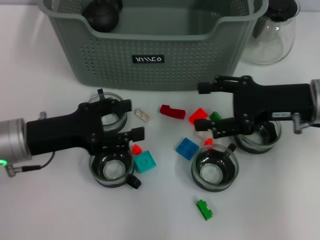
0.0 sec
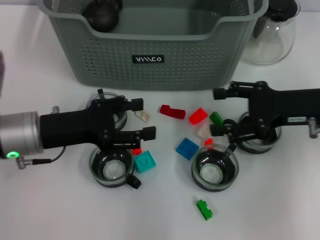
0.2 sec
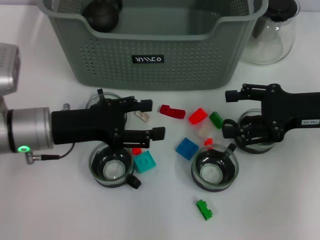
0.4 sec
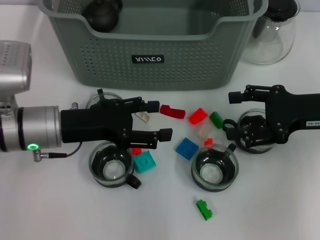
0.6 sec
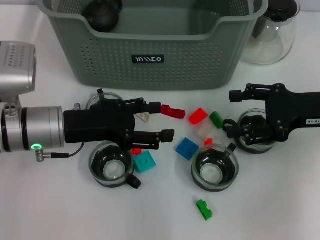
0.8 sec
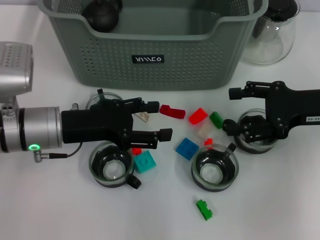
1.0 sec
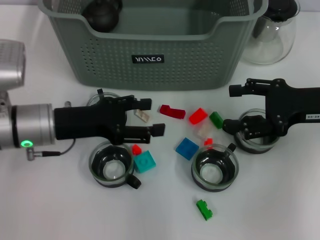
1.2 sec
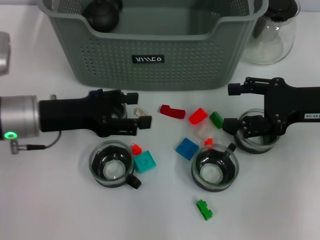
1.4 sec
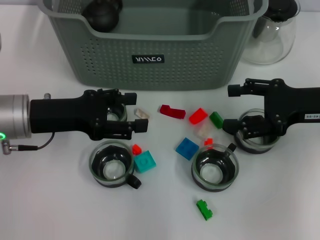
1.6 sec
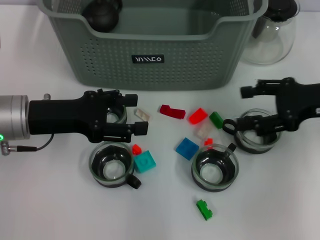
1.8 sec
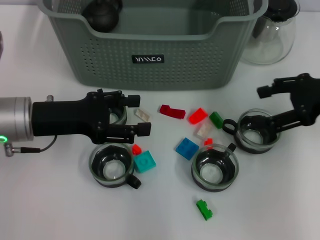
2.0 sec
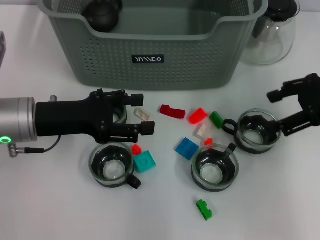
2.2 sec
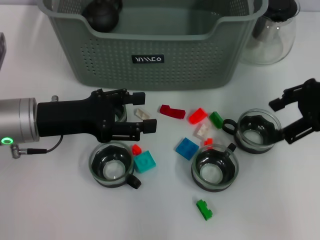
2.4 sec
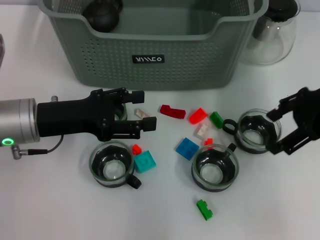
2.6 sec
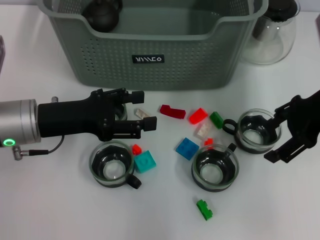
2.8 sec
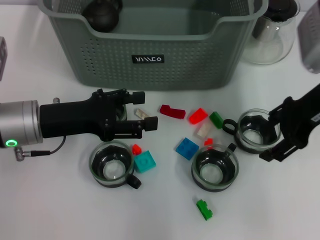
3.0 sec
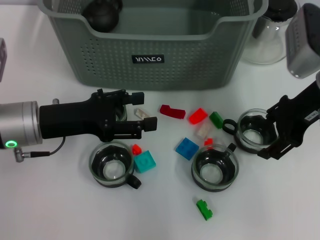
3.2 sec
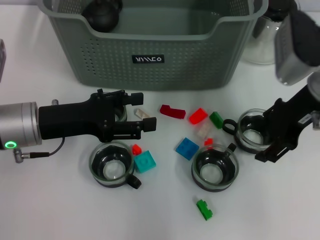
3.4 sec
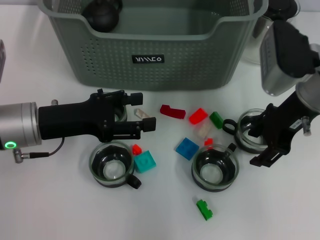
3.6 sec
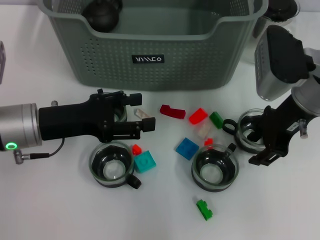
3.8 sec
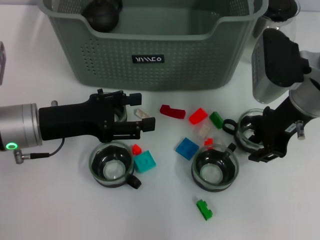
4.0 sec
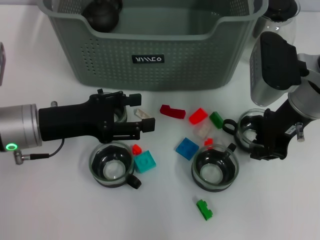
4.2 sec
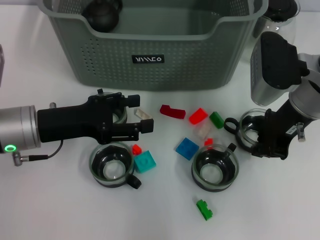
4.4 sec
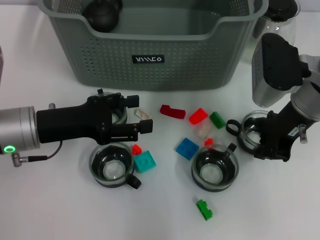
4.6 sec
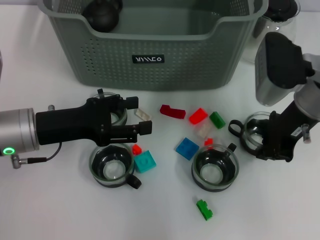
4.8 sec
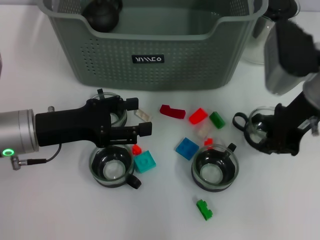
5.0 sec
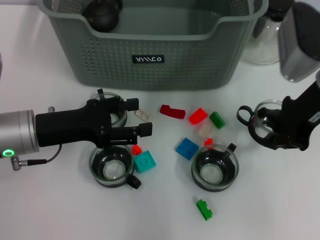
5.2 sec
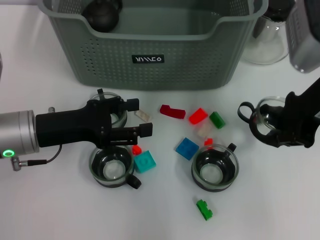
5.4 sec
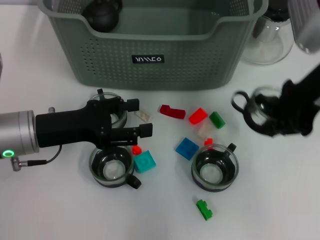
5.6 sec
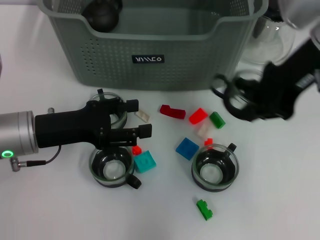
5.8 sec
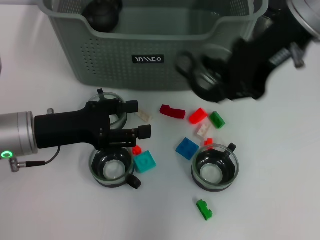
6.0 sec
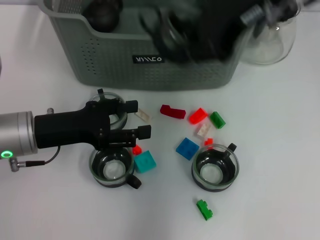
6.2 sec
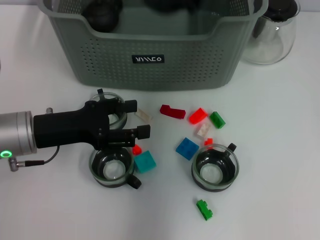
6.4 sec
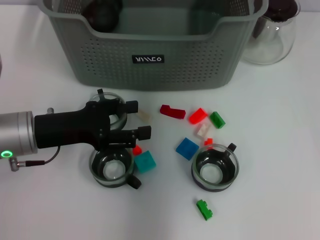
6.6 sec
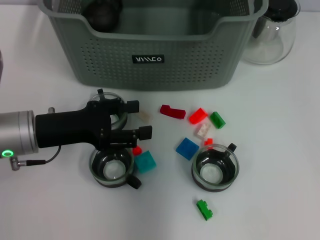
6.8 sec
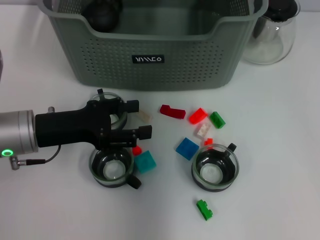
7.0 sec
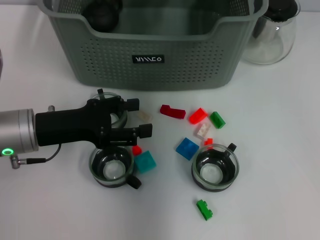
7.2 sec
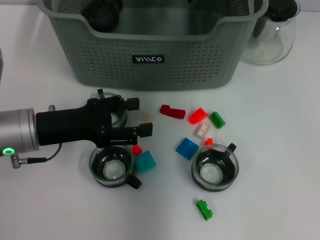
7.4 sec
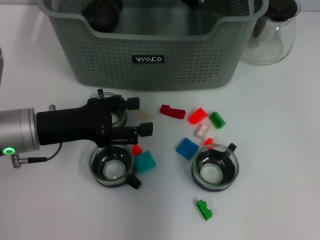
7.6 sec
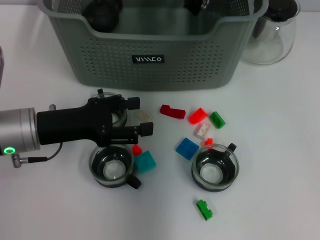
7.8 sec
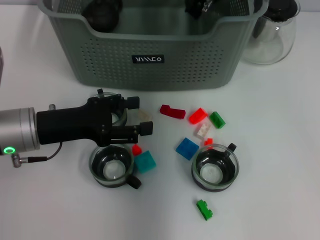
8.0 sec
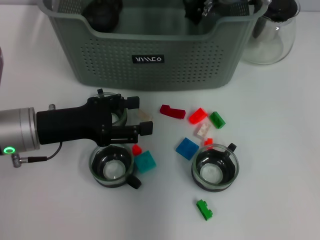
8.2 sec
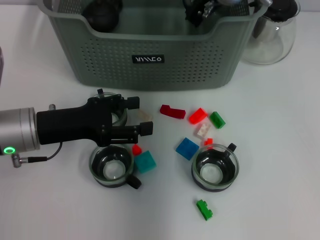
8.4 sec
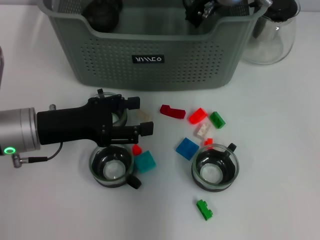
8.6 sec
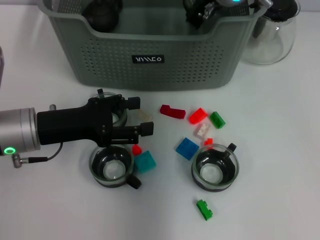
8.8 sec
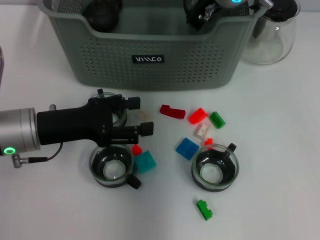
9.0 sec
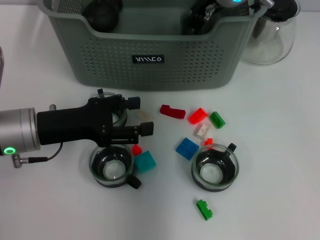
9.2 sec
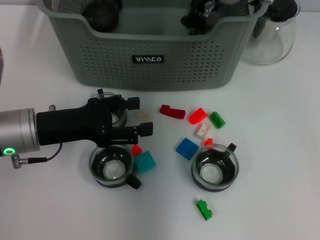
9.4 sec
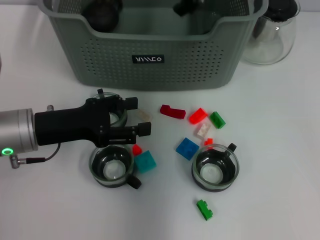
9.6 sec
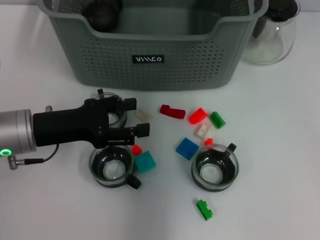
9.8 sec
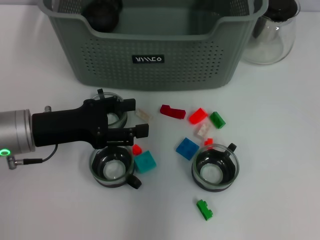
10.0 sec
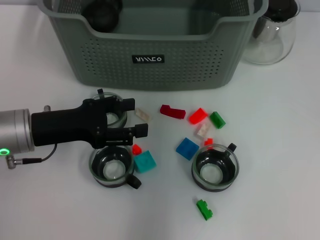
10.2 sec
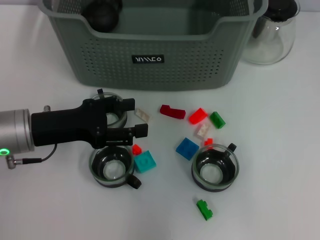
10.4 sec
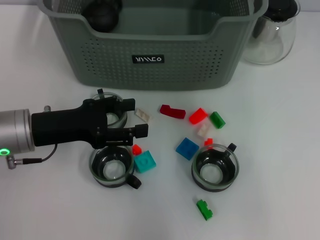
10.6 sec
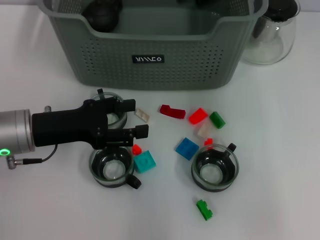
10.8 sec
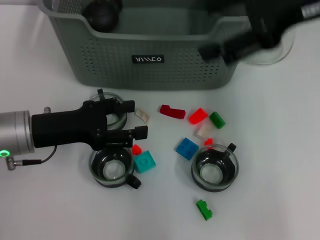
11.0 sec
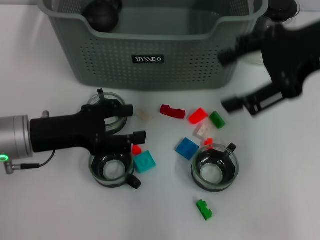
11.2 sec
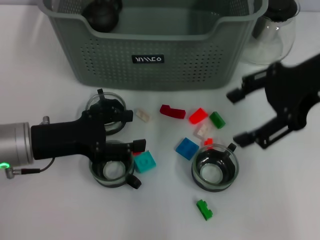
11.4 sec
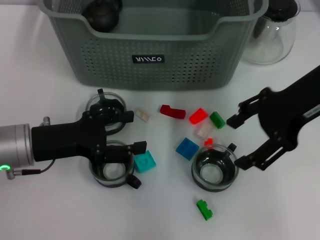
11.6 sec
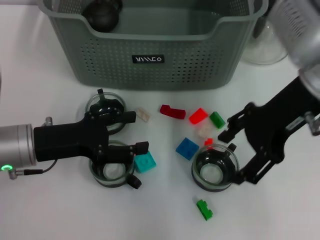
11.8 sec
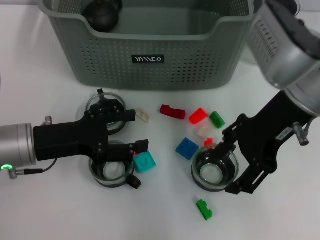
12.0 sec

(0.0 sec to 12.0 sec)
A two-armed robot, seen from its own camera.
Task of the whole recording: pick up the teacup on the table and place it into the storage bin, pick up the block on the table and place it into the storage bin.
Step, 0.0 sec - 4.4 sec: Grasp the cup with right gripper.
Step, 4.6 sec - 9.2 sec: Place the cup in the storage box with right gripper.
0.0 sec - 1.6 sec: The grippers move only a little.
1.6 sec - 3.0 sec: The right gripper changes place by approximately 5 cm.
3.0 sec - 4.4 sec: The right gripper moves about 5 cm, and closes its fingers.
4.4 sec - 6.0 sec: The right gripper shifts about 15 cm upward.
6.0 sec - 7.6 sec: The right gripper shifts some 15 cm forward, downward and to the left.
9.0 sec - 10.4 sec: The right gripper goes approximately 15 cm upward and backward, and opens its fingers.
10.4 sec - 12.0 sec: The right gripper is displaced downward and backward by approximately 15 cm.

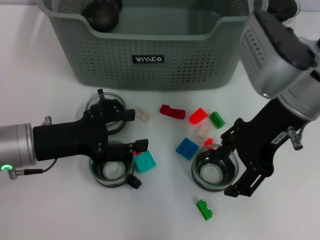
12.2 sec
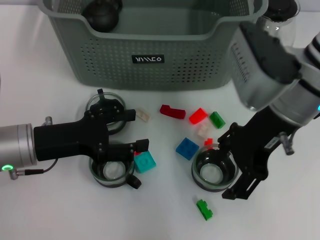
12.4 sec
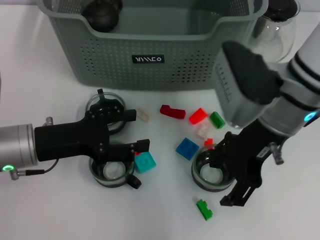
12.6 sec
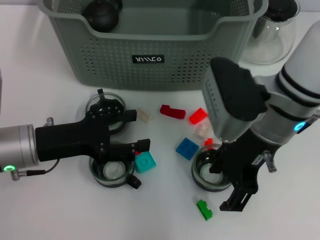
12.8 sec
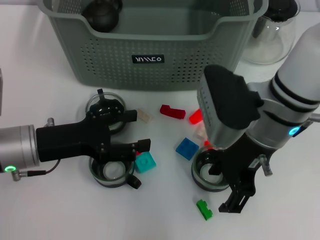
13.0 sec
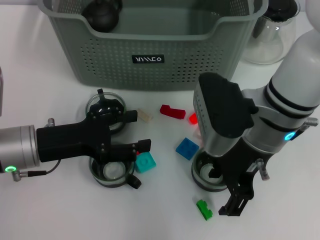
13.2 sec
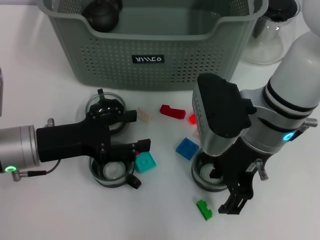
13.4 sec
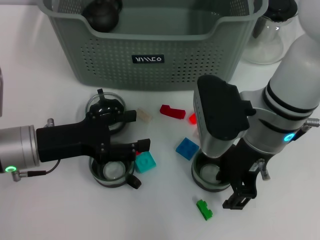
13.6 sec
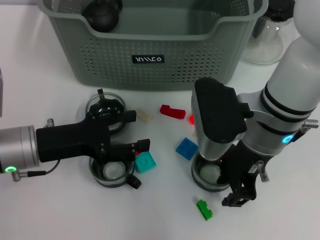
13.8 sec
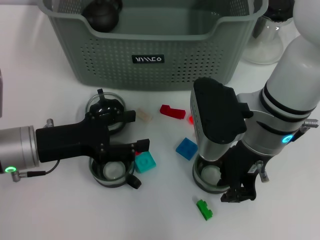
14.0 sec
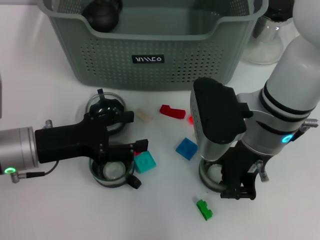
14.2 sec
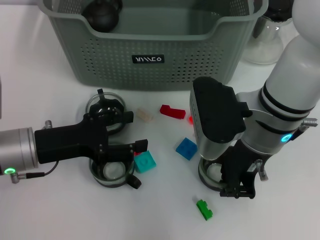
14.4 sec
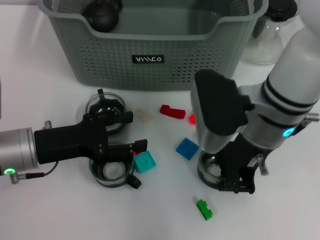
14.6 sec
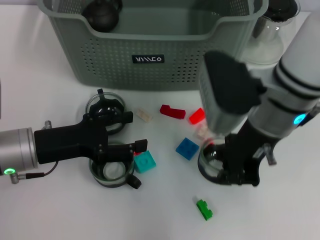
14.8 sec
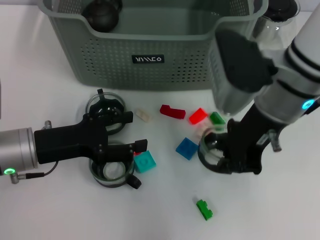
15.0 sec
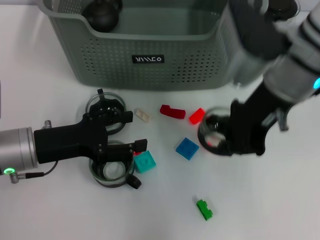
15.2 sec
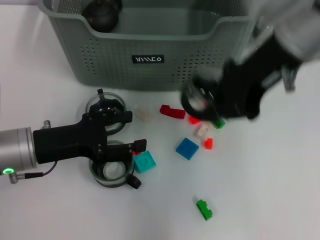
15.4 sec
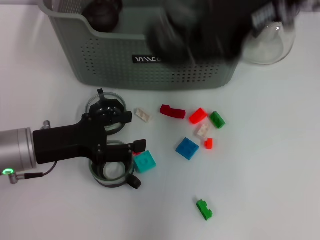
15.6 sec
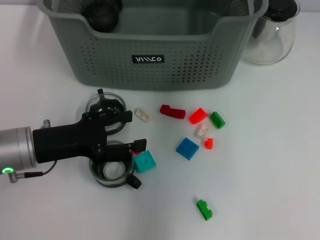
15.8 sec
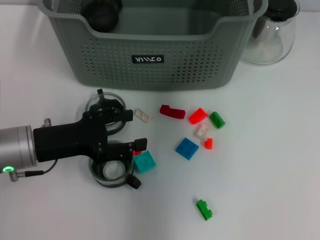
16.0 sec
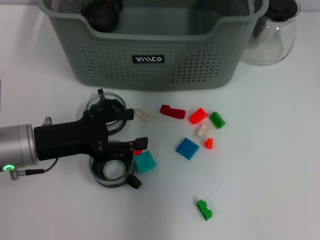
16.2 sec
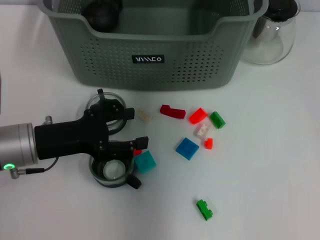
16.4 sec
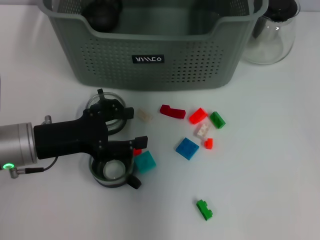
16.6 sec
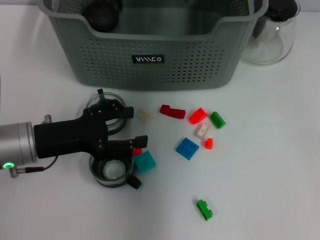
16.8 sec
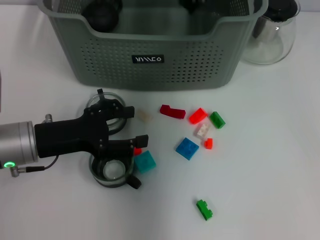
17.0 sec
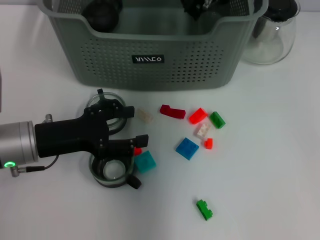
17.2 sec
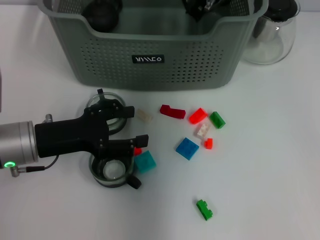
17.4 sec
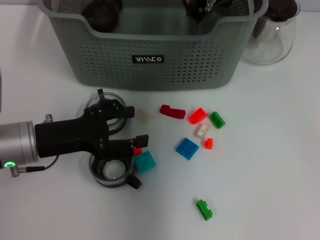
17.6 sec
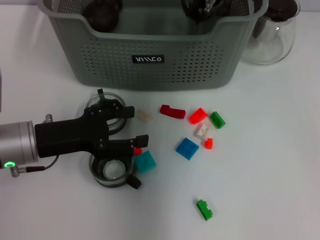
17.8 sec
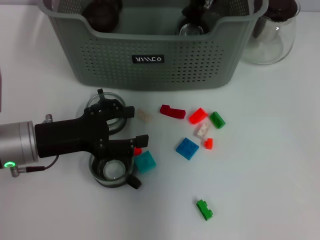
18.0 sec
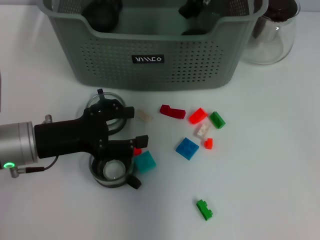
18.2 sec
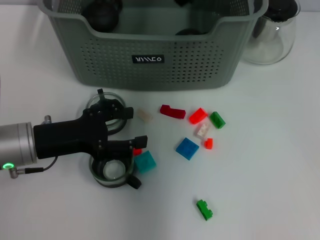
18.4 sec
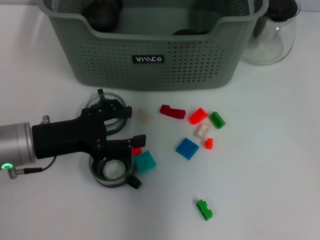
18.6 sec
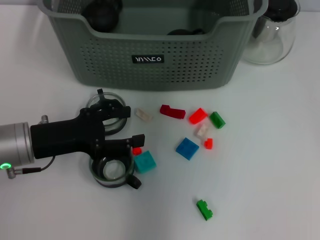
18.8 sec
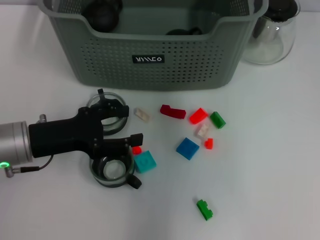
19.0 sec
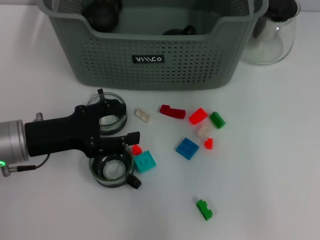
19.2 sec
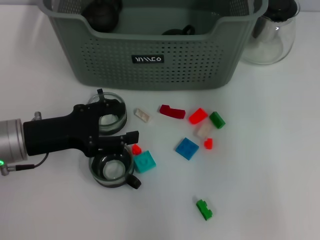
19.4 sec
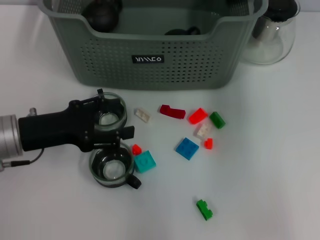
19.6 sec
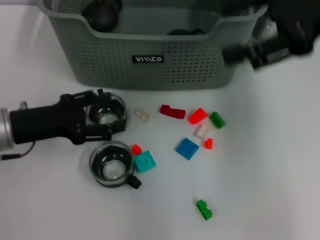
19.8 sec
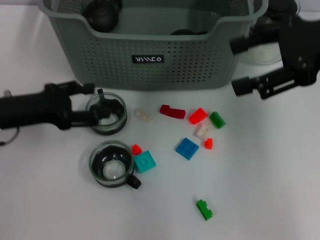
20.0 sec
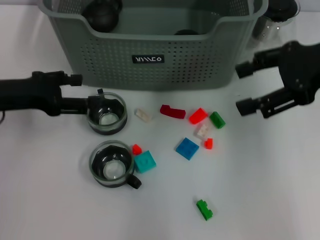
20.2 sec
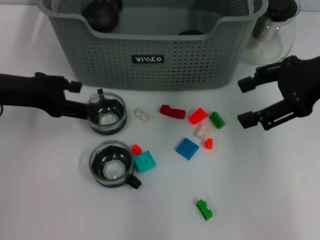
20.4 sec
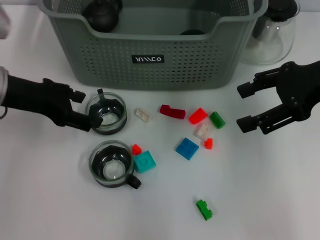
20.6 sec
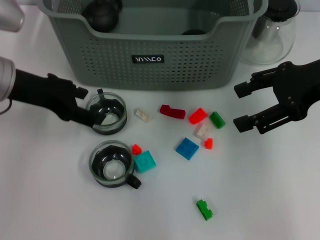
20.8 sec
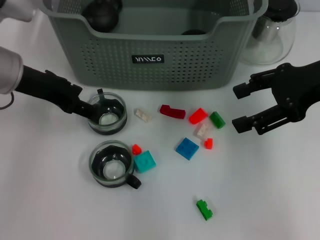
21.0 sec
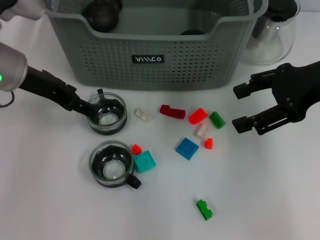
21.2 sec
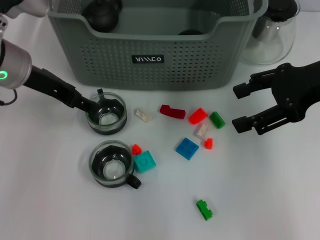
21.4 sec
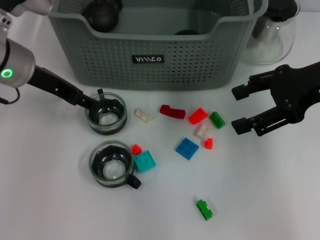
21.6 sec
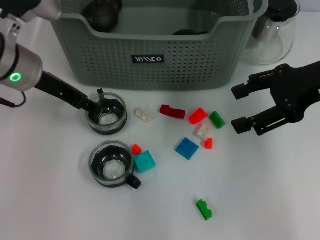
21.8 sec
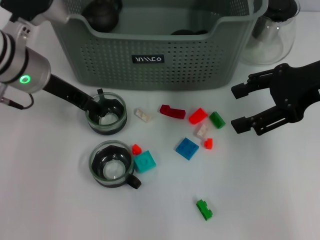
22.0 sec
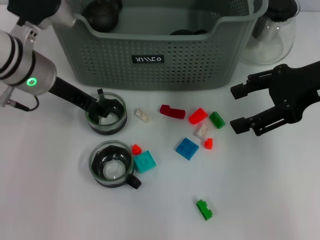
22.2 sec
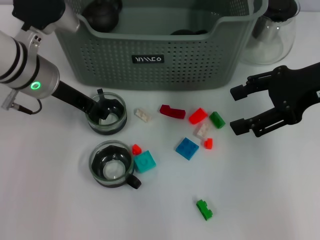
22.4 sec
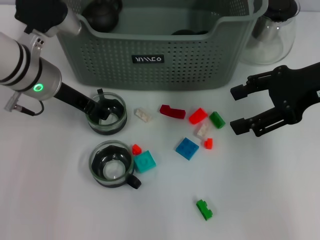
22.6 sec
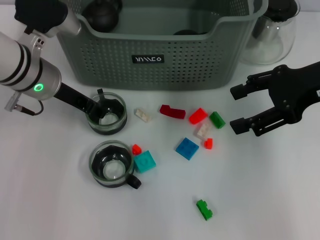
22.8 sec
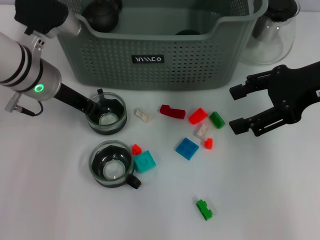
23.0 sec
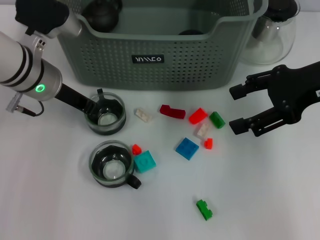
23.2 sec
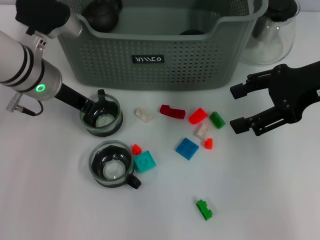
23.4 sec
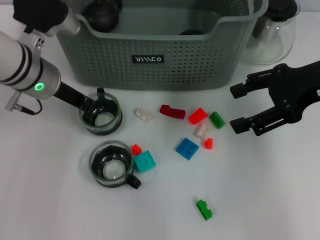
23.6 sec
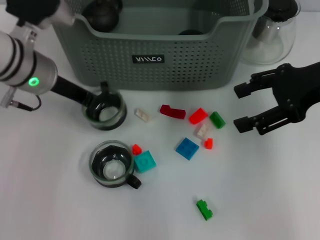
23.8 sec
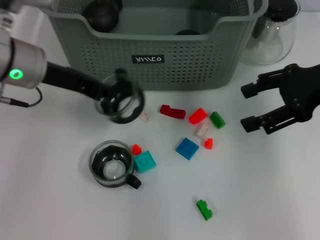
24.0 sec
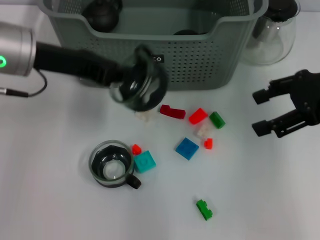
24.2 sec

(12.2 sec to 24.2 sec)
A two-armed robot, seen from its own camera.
Task of the whole recording: pick up the teacup on the table and place it into the storage bin, pick up the block on the table and place it into the storage bin.
Step, 12.2 sec - 14.2 sec: Grasp the cup with right gripper.
Step, 14.4 sec - 18.0 sec: Place the cup in the storage box with right gripper.
Step, 18.2 sec - 23.4 sec: Grasp the cup with left gripper.
12.2 sec - 13.8 sec: The right gripper travels downward by some 5 cm.
13.8 sec - 15.2 sec: The right gripper is displaced upward by roughly 5 cm, and closes up.
15.2 sec - 16.6 sec: The right gripper is displaced forward by approximately 15 cm.
18.2 sec - 19.8 sec: The right gripper is displaced to the right, backward and upward by approximately 20 cm, and opens.
19.8 sec - 21.2 sec: The right gripper is displaced downward by some 5 cm; the left gripper goes roughly 10 cm upward and forward.
21.2 sec - 22.6 sec: The left gripper moves approximately 5 cm.
22.6 sec - 24.2 sec: The left gripper shifts approximately 5 cm upward, and closes up.
